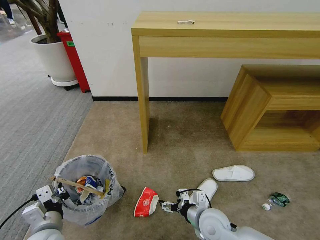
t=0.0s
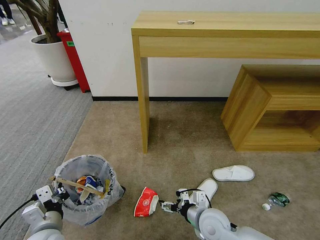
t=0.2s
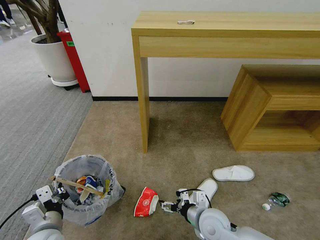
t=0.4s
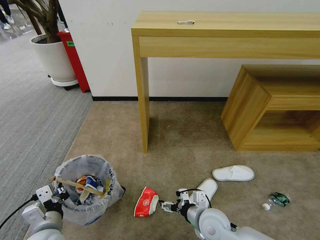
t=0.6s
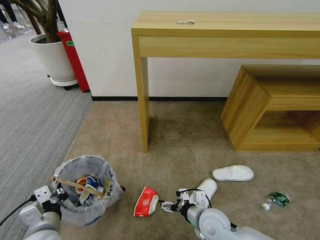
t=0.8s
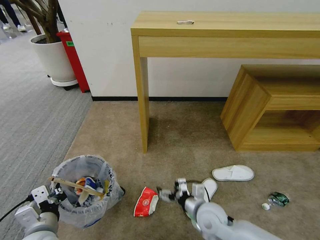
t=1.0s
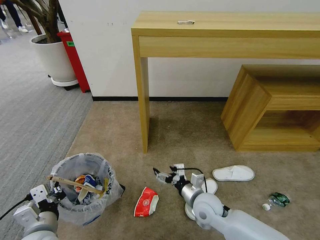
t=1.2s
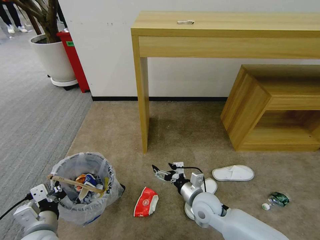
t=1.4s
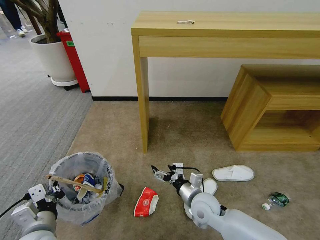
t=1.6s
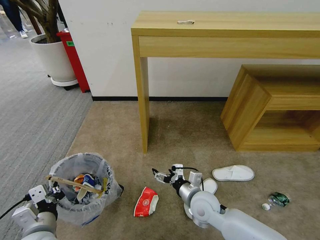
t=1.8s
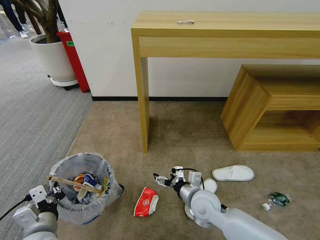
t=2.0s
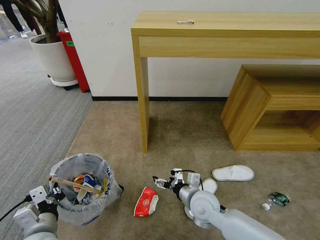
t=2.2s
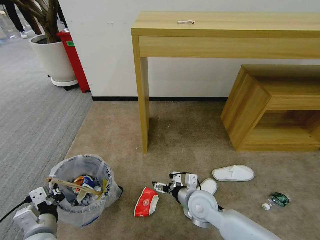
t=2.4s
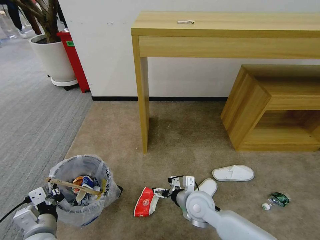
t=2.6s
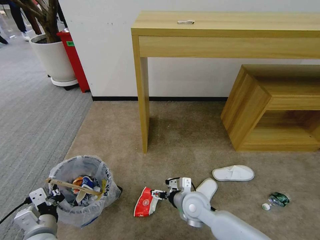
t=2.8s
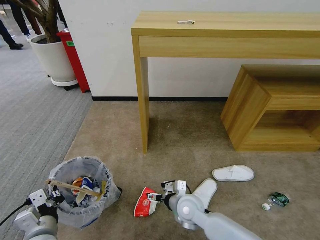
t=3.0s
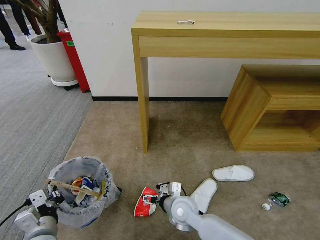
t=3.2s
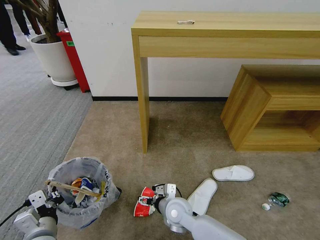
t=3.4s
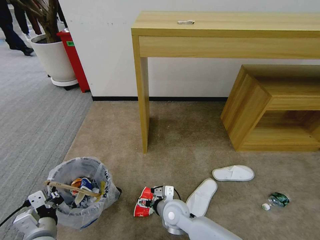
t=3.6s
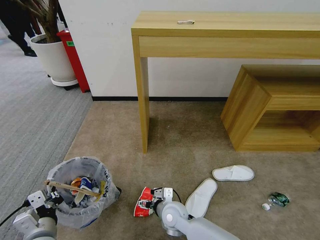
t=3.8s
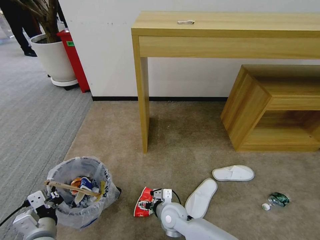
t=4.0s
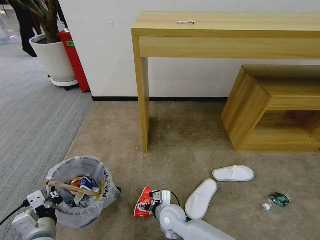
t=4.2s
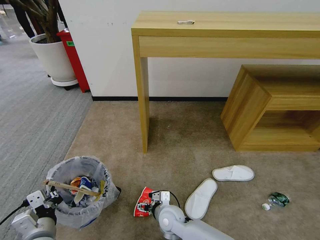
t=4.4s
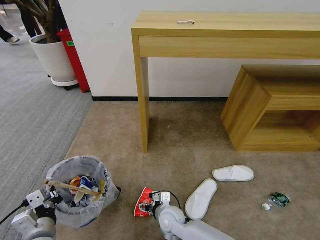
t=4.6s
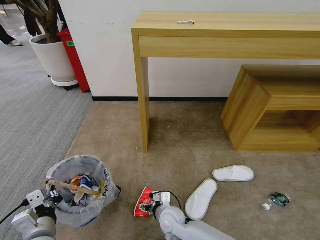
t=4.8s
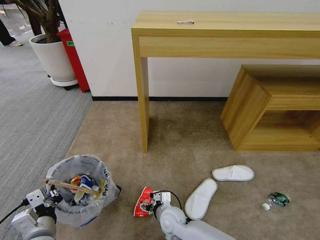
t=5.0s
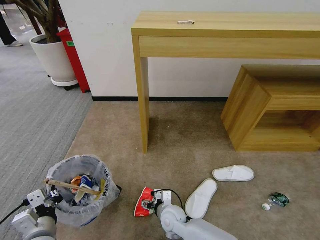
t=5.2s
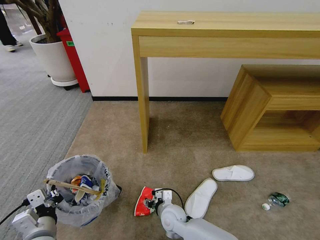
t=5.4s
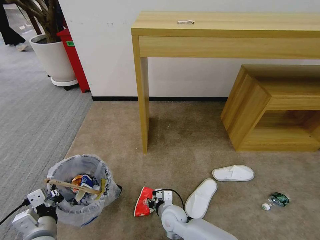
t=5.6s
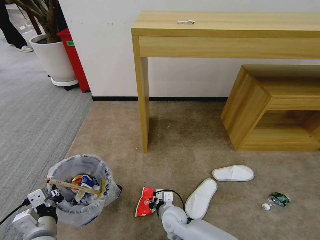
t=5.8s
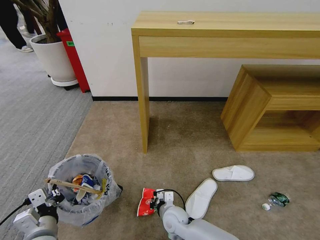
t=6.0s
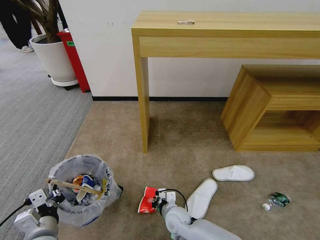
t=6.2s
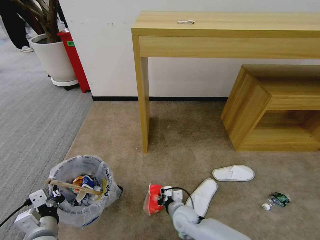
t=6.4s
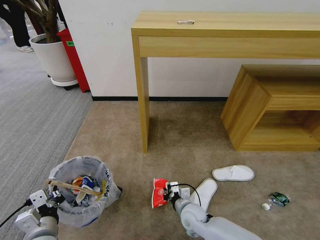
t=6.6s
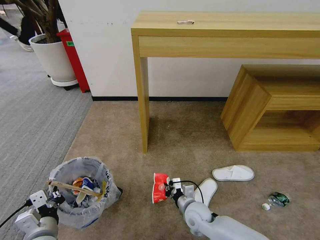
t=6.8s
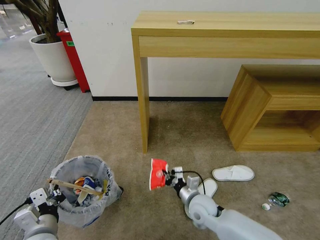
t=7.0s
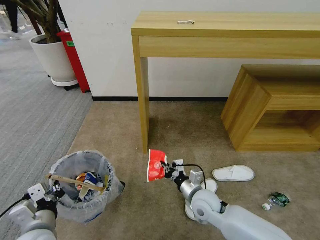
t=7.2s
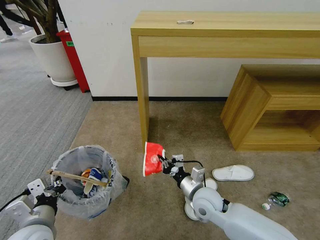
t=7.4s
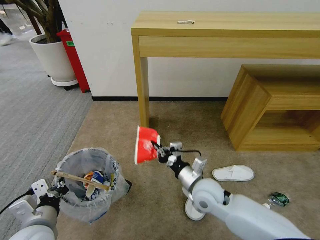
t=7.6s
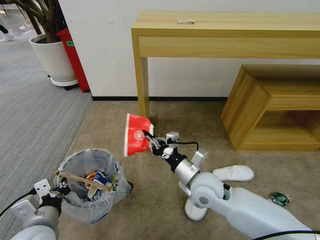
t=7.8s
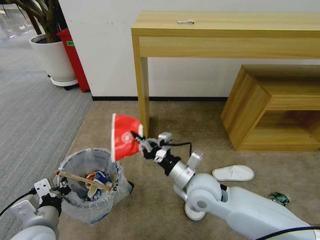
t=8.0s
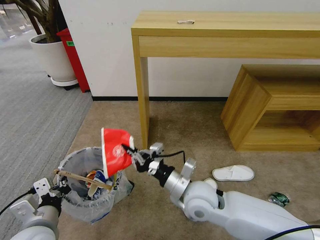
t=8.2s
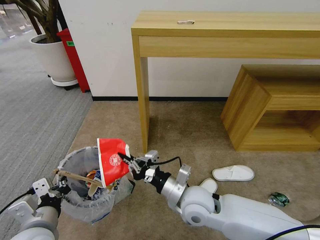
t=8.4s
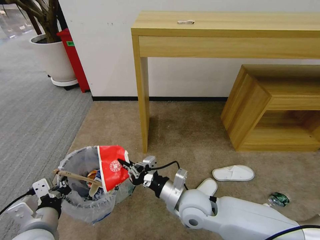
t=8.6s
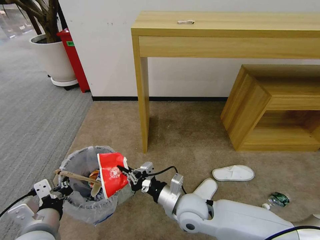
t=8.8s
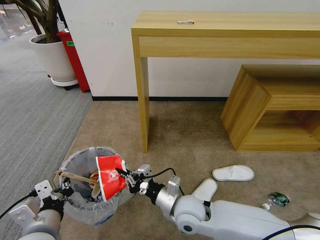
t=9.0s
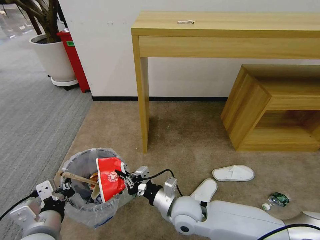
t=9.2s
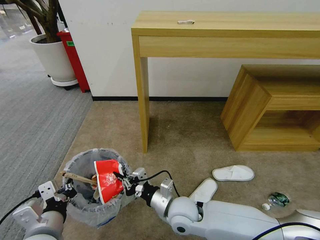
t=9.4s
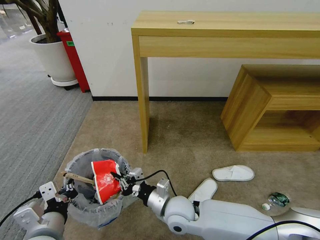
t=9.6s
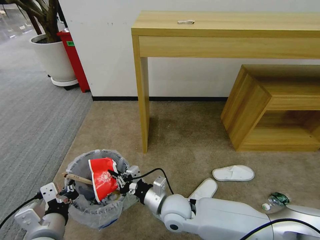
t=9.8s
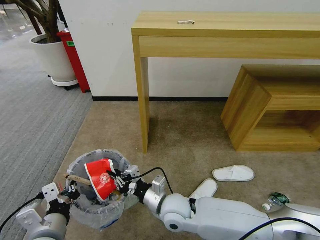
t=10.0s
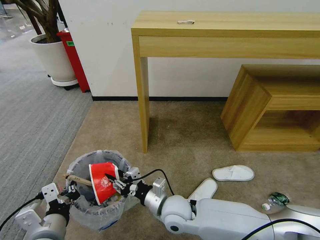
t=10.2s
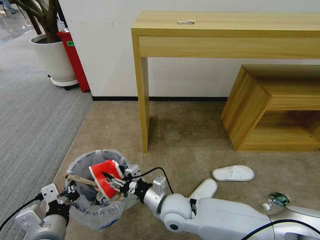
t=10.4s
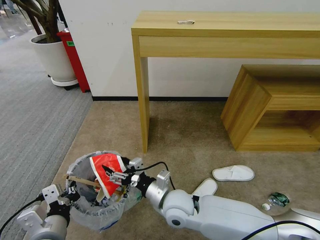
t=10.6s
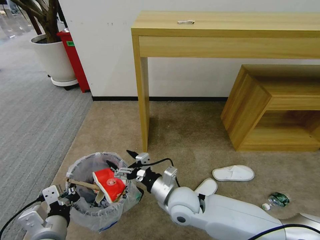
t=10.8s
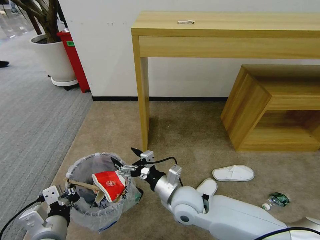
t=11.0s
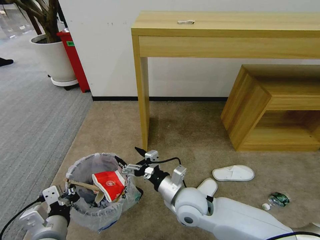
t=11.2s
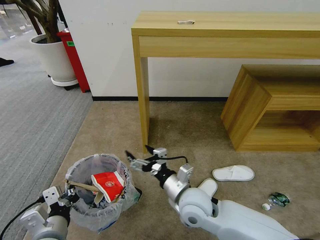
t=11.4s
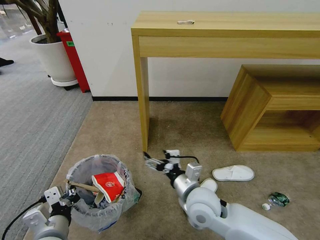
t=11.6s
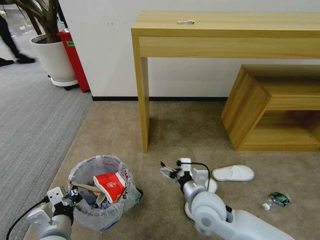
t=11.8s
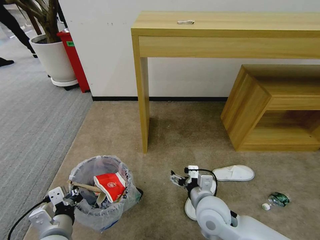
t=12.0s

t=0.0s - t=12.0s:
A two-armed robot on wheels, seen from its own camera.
Task of the whole recording: Pick up the trash bin and place the garbage on the floor into it.
t=0.0s - t=1.6s: The right gripper changes place by roughly 5 cm.
t=1.6s - t=3.0s: The right gripper changes place by approximately 5 cm.
t=3.0s - t=4.4s: The right gripper is displaced to the left and downward by roughly 10 cm.
t=4.4s - t=6.0s: The right gripper closes its fingers.
t=6.0s - t=7.6s: The left gripper changes place by some 5 cm. The right gripper travels upward and to the right by some 20 cm.
t=7.6s - t=9.0s: The right gripper travels to the left by about 5 cm.
t=9.0s - t=10.4s: The right gripper opens up.
t=10.4s - t=12.0s: The right gripper goes about 10 cm to the right, and opens.

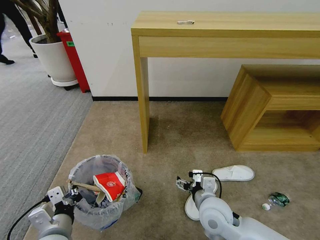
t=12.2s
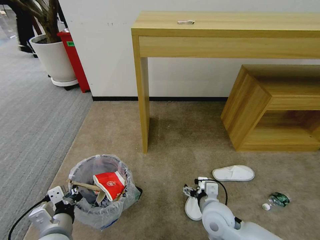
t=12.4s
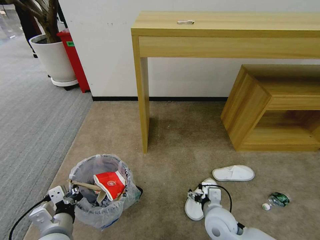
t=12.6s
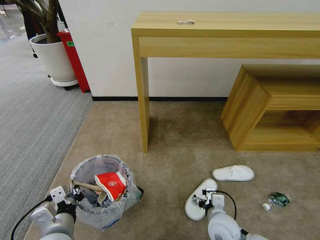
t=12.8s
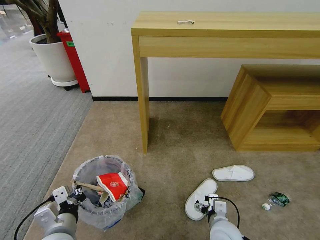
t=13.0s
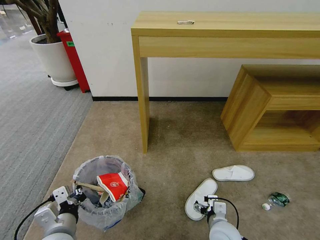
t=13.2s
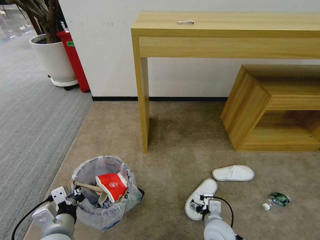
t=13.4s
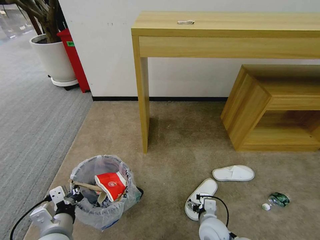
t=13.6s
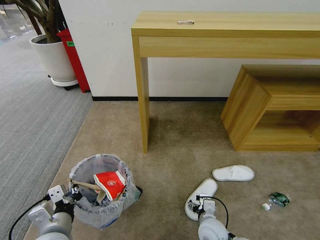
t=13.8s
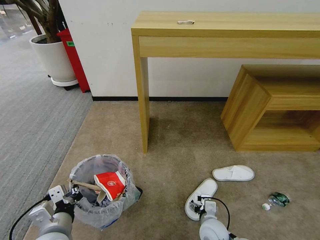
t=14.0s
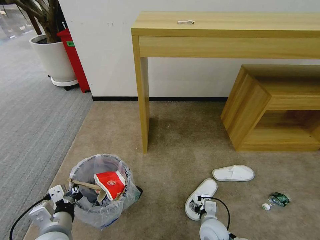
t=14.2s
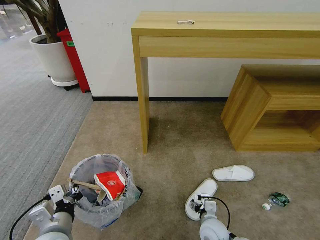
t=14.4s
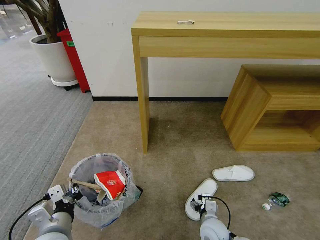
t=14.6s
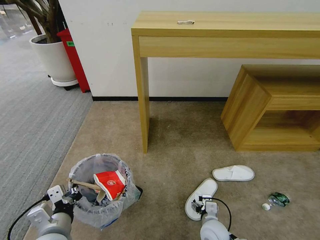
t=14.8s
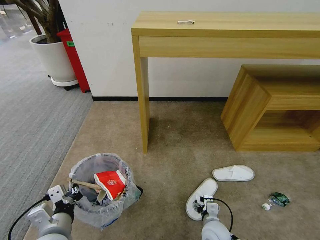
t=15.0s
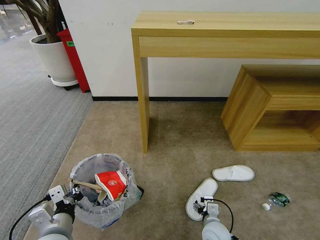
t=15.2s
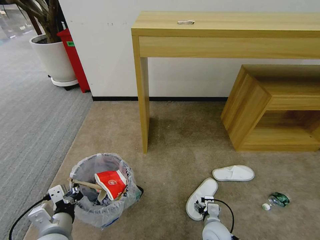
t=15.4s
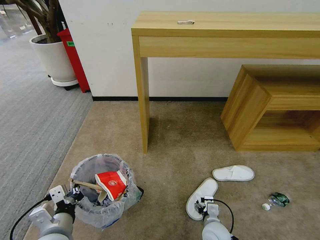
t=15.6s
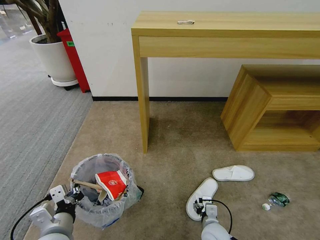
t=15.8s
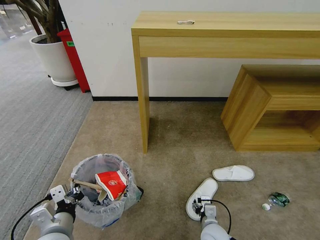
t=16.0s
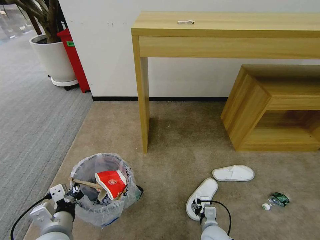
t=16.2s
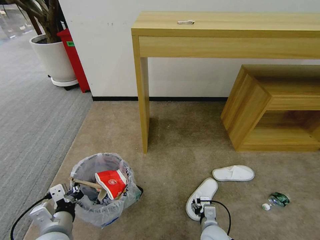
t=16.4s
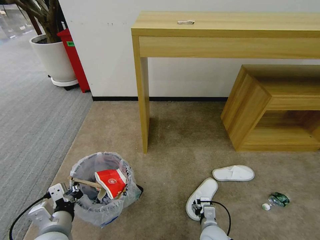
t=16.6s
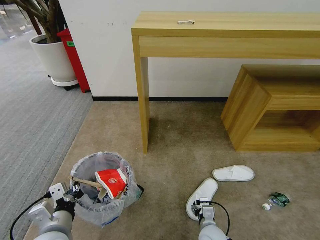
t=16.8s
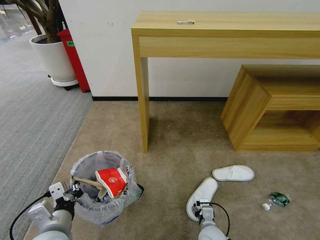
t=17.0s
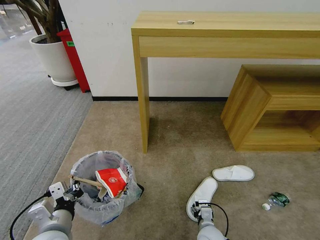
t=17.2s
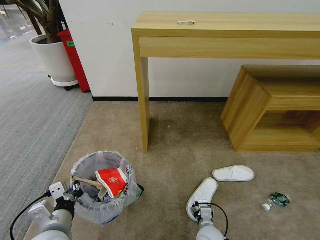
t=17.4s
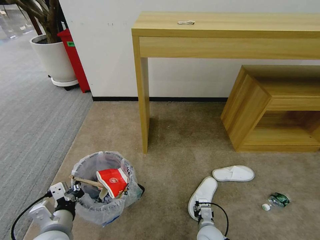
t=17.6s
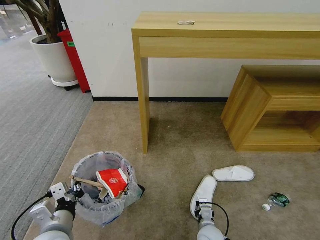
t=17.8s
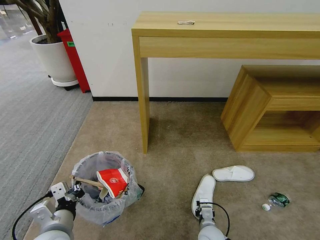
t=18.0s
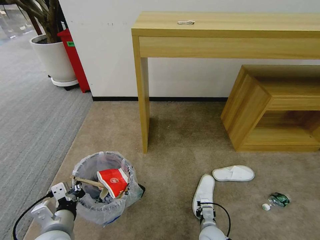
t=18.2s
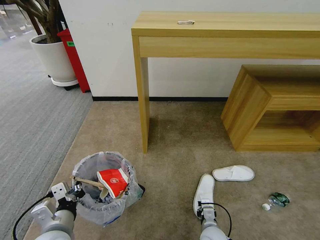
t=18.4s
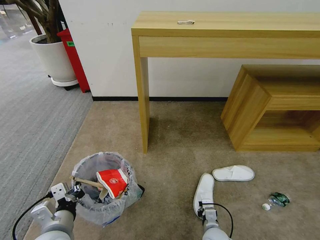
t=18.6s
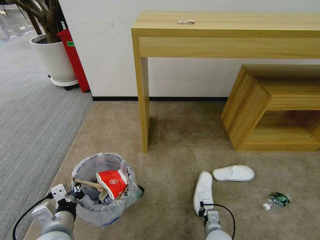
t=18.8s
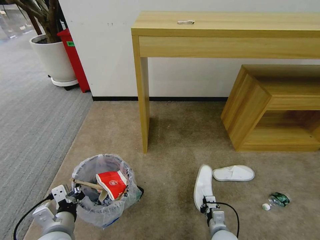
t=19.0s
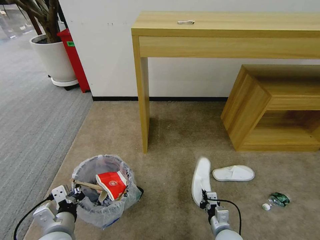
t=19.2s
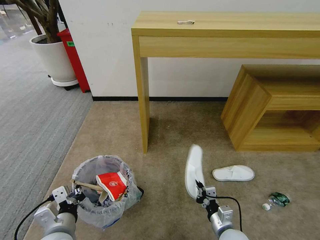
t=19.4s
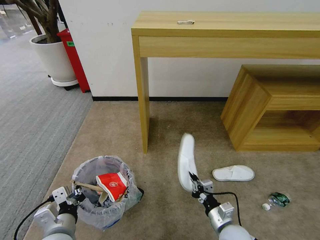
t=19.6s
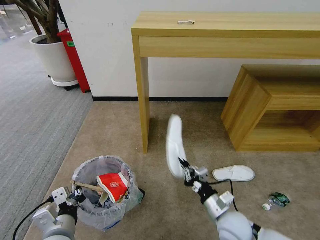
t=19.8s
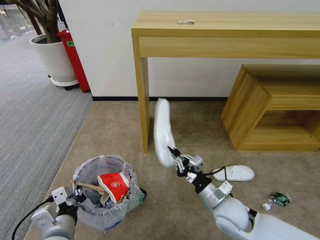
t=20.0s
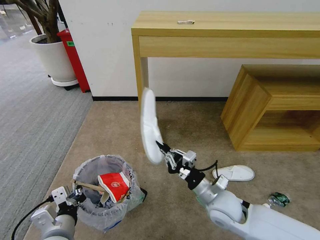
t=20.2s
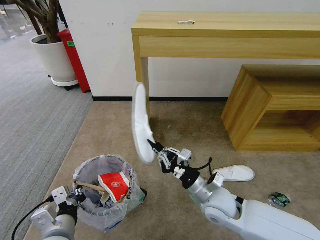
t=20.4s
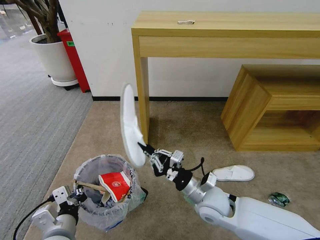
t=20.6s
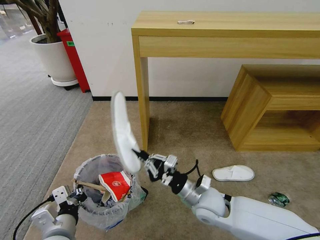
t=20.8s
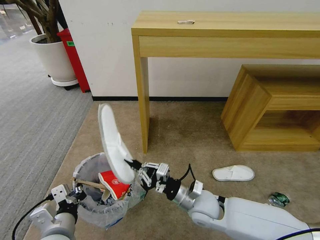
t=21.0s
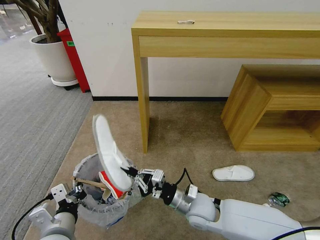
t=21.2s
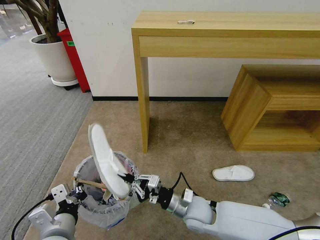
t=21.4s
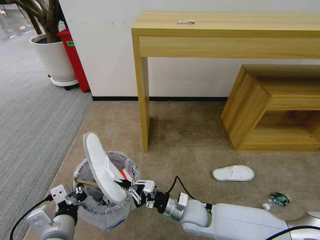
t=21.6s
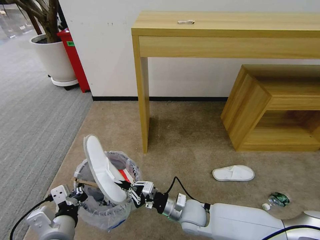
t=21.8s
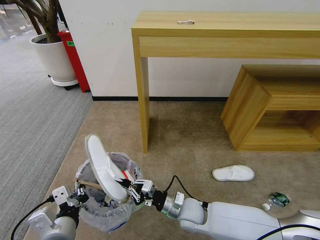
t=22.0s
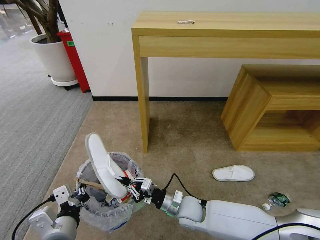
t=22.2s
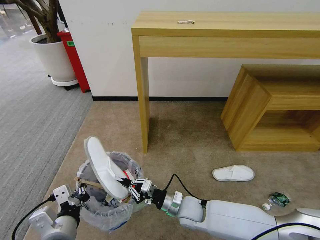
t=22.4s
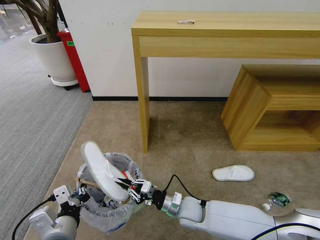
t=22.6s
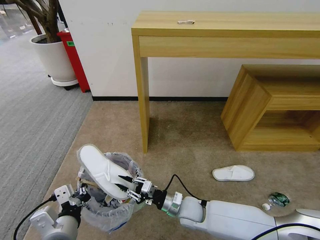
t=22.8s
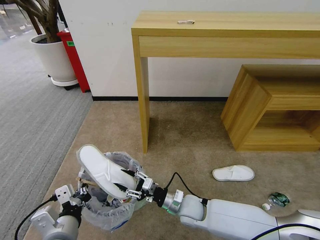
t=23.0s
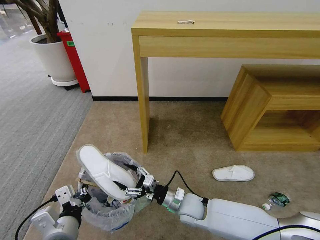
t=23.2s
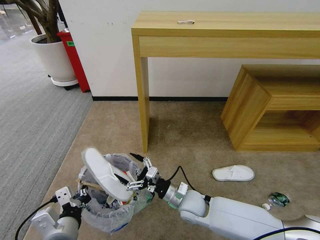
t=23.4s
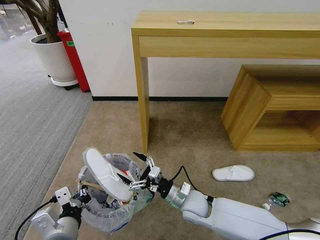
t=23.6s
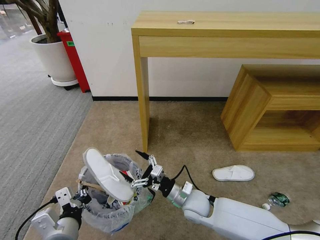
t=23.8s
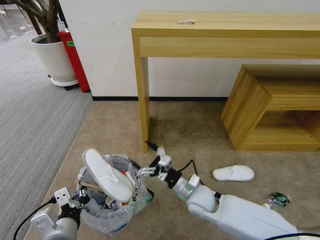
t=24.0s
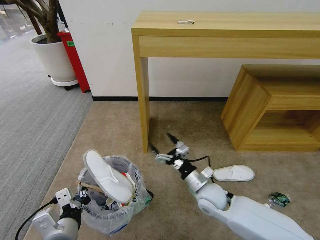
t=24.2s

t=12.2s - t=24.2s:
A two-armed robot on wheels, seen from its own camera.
Task of the whole recording: Pick up the trash bin and place the garbage on the floor into it.
t=12.2s - t=13.8s: The right gripper heads downward, covering approximately 15 cm.
t=13.8s - t=16.6s: The grippers make only small movements.
t=16.6s - t=18.2s: The right gripper closes up.
t=18.2s - t=19.8s: The right gripper heads upward, covering about 15 cm.
t=19.8s - t=21.2s: The right gripper moves to the left and forward, about 10 cm.
t=21.2s - t=22.6s: The right gripper heads downward, covering about 5 cm.
t=22.6s - t=24.2s: The right gripper is displaced upward and to the right by roughly 10 cm, and opens up.
